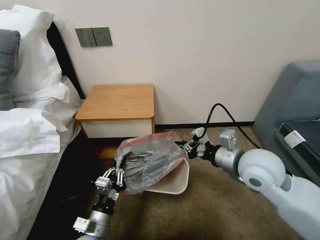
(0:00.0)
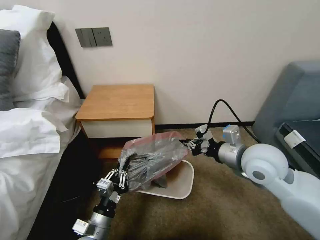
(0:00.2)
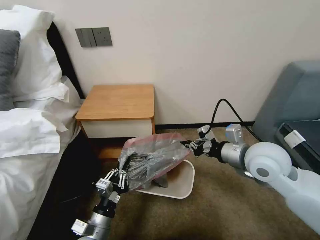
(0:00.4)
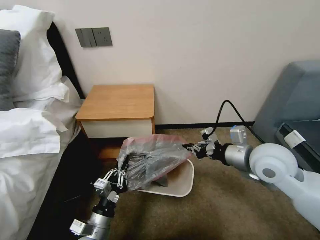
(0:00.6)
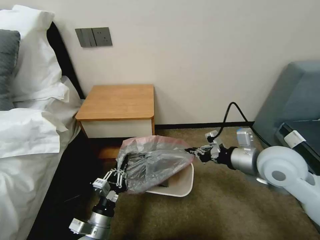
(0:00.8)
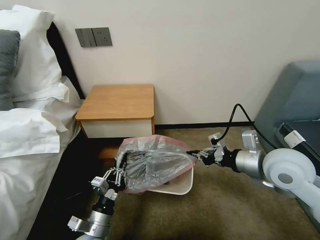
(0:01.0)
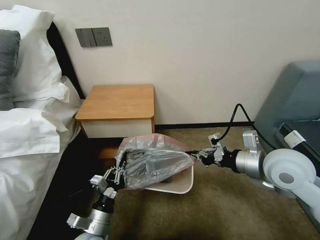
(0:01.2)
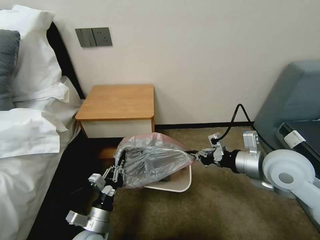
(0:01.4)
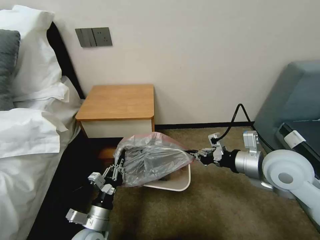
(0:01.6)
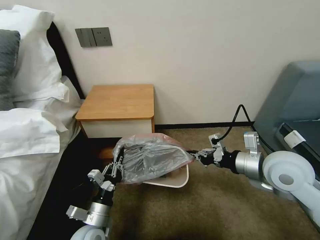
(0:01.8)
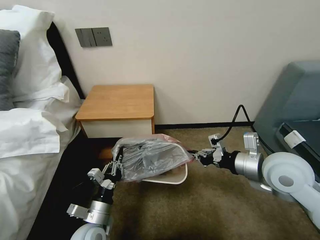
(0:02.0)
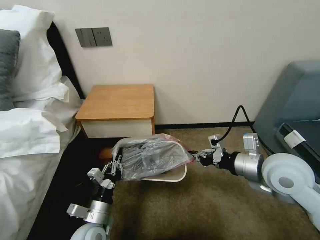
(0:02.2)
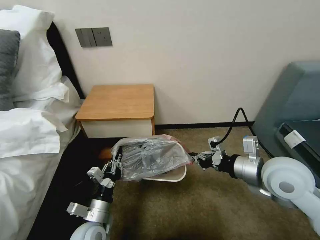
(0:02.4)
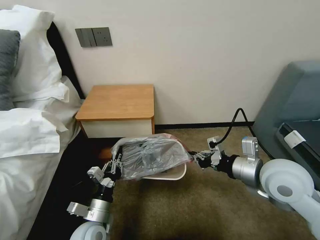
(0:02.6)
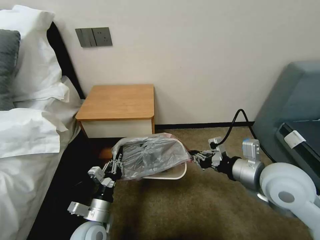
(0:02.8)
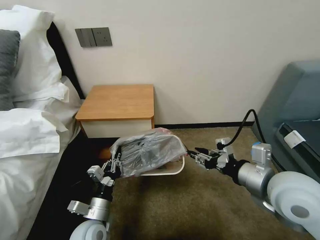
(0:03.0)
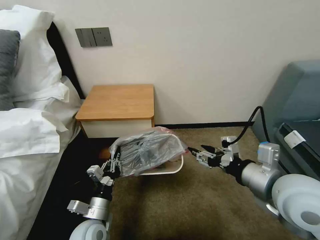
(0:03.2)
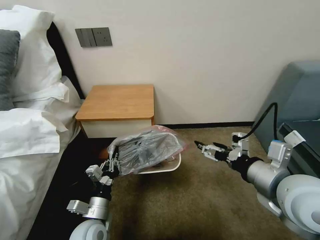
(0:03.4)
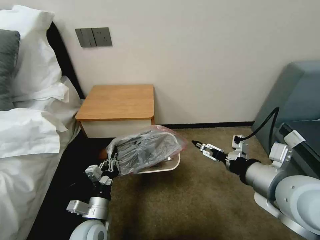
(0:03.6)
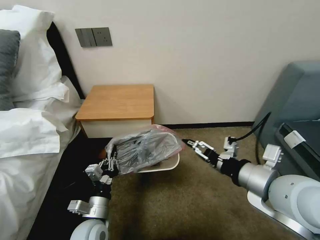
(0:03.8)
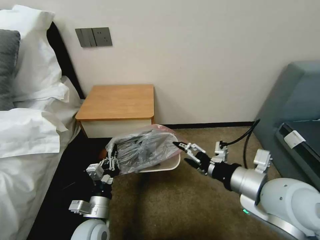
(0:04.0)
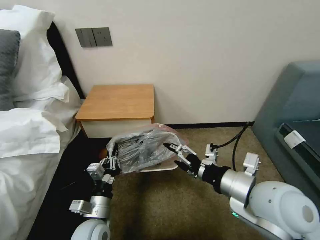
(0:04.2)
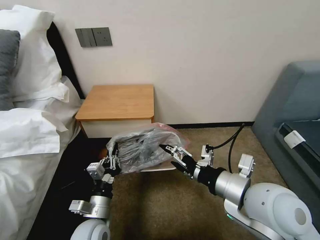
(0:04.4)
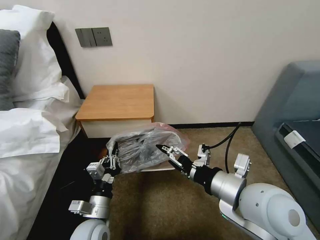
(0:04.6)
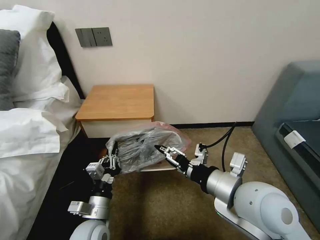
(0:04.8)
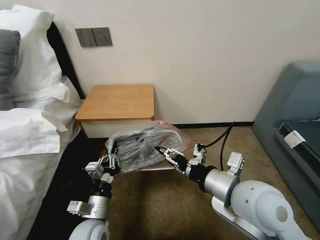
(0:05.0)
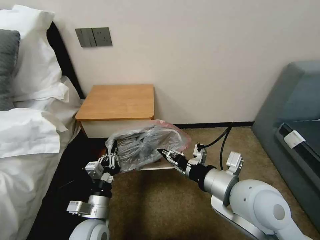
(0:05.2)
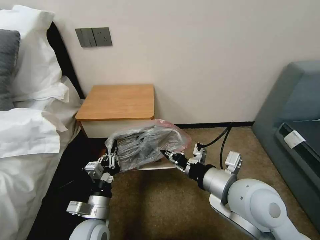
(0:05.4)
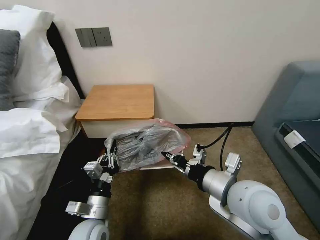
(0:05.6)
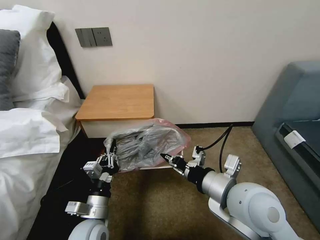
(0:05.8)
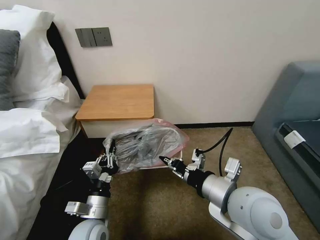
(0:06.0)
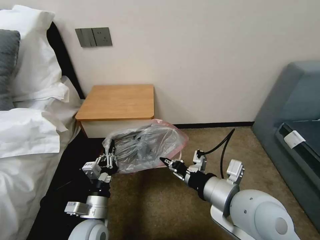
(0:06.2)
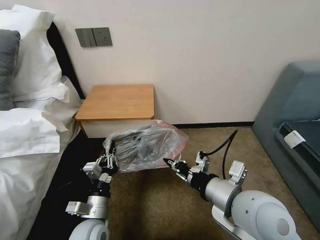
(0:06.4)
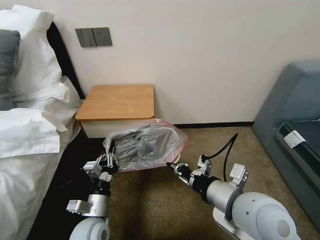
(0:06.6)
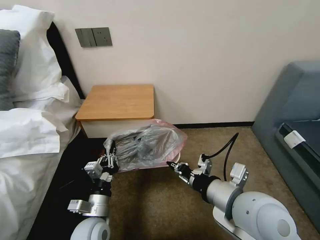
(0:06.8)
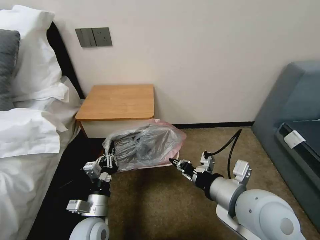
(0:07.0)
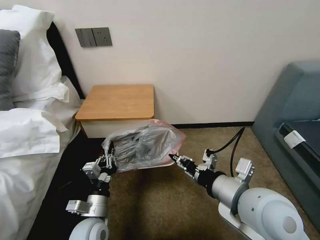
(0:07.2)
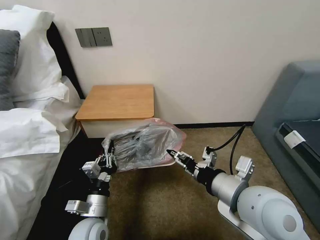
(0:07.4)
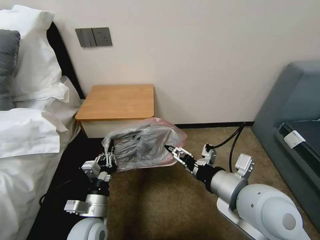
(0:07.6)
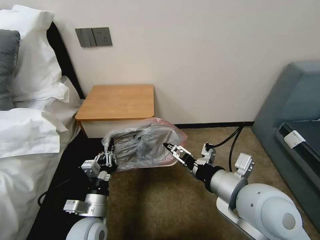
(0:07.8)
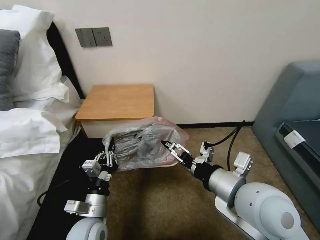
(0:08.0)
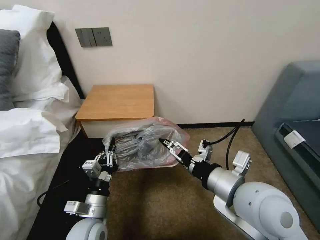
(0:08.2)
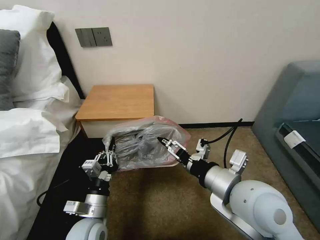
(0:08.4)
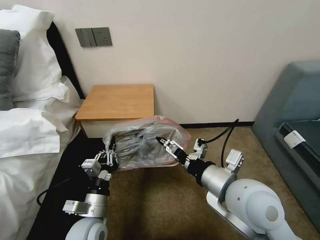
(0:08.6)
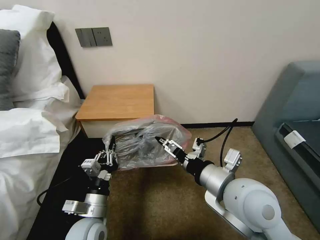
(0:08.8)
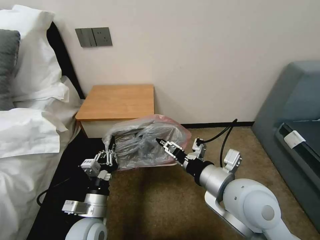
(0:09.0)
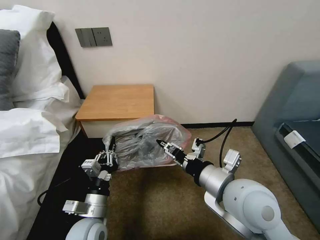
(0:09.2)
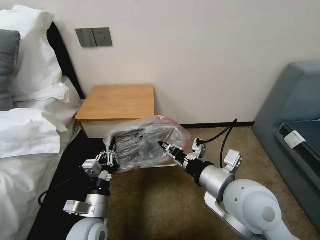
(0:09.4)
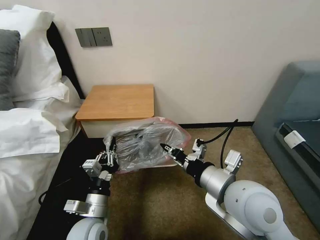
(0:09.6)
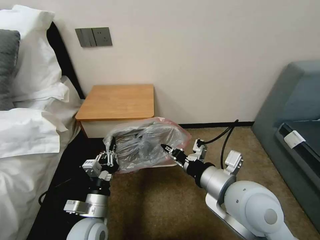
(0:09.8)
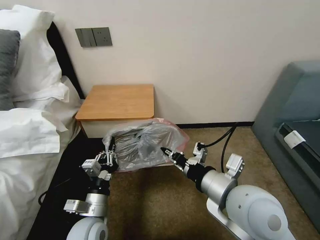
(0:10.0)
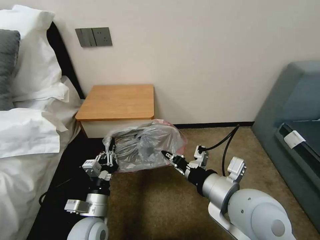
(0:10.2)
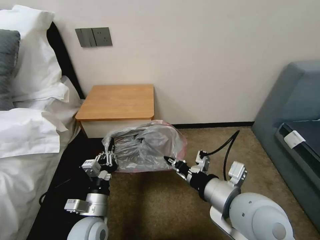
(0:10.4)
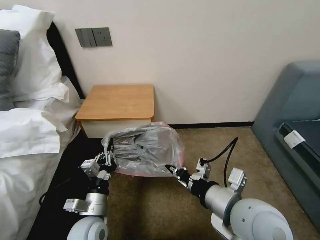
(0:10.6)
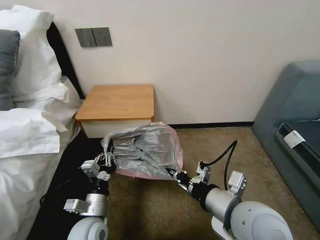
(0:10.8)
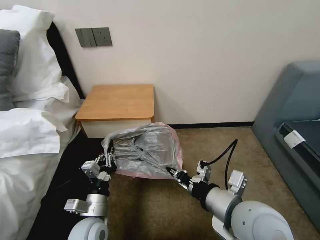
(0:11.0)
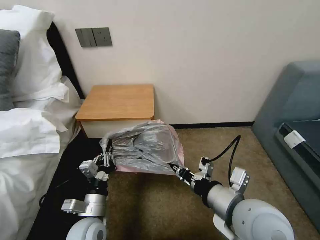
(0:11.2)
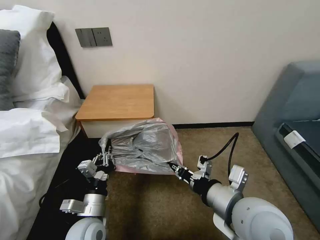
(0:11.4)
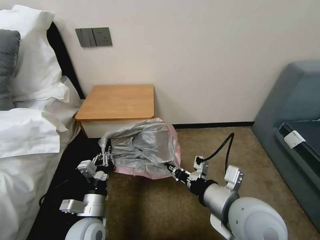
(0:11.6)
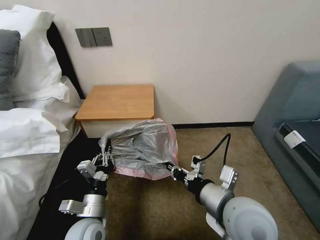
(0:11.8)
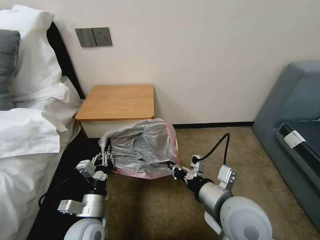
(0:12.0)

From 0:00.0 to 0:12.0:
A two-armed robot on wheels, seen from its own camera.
Task of the whole recording: Pick up the garbage bag from the table and place it over the trash can.
From 0:00.0 to 0:01.6: The right gripper moves to the right, some 5 cm.
From 0:01.6 to 0:03.0: The right gripper shifts roughly 5 cm backward, and opens its fingers.
From 0:03.0 to 0:04.4: The right gripper heads to the left, covering about 5 cm, and opens its fingers.
From 0:04.4 to 0:06.0: The right gripper closes.
From 0:06.0 to 0:07.6: The right gripper opens its fingers.
From 0:07.6 to 0:09.0: The grippers stay close to where they were, moving slightly.
From 0:09.0 to 0:10.4: The right gripper closes up.
From 0:10.4 to 0:12.0: There are only small adjustments of the grippers.

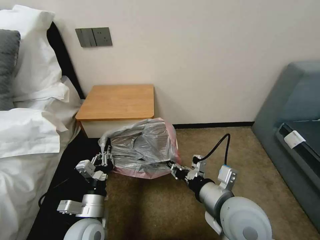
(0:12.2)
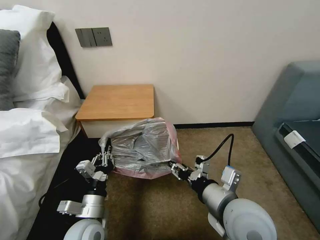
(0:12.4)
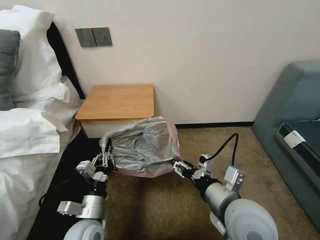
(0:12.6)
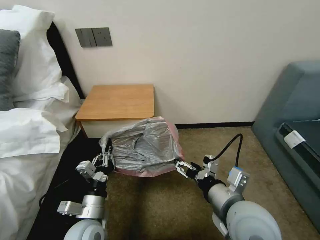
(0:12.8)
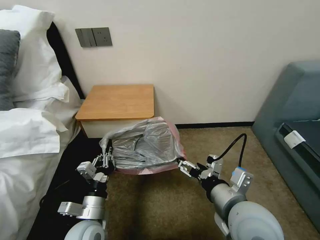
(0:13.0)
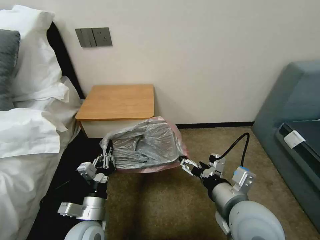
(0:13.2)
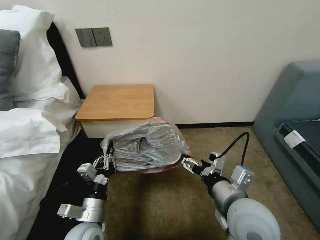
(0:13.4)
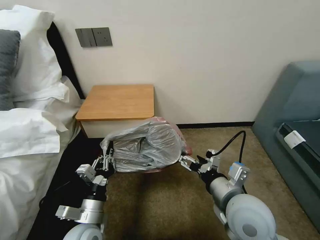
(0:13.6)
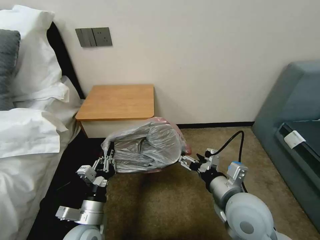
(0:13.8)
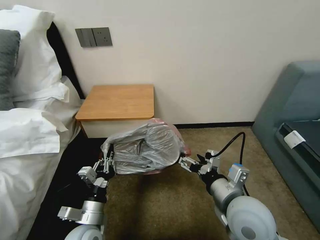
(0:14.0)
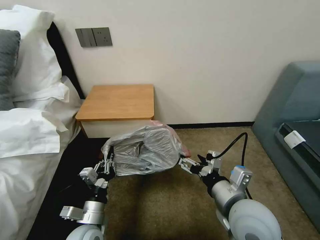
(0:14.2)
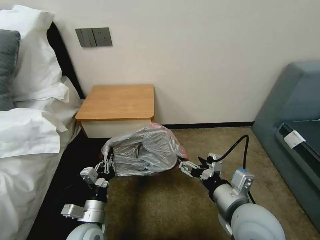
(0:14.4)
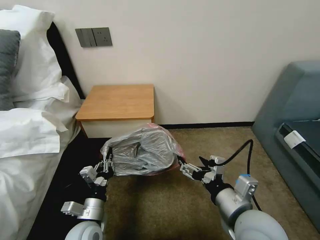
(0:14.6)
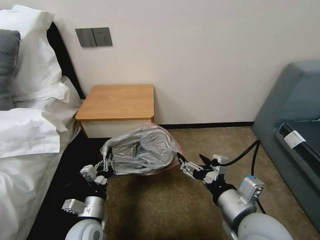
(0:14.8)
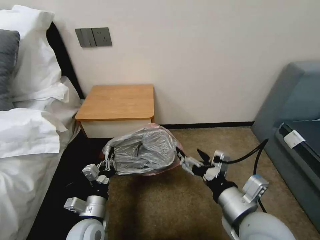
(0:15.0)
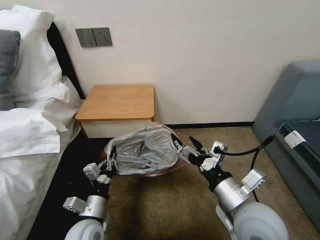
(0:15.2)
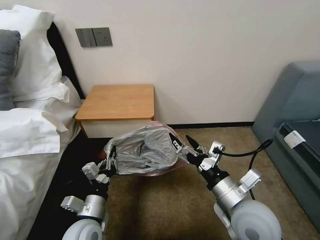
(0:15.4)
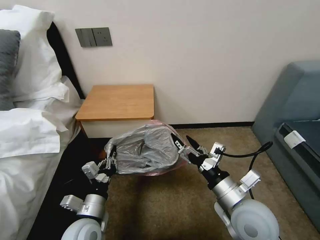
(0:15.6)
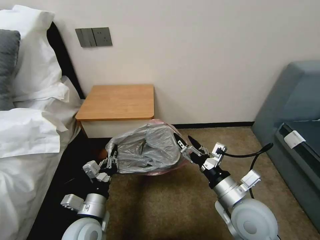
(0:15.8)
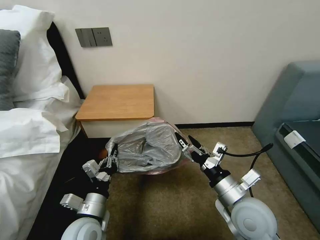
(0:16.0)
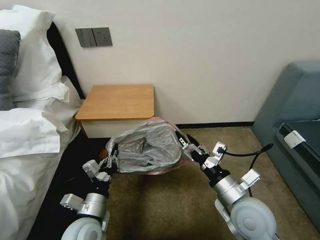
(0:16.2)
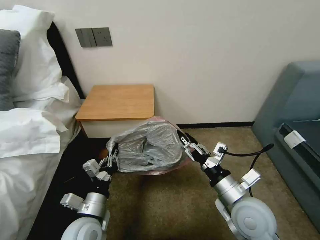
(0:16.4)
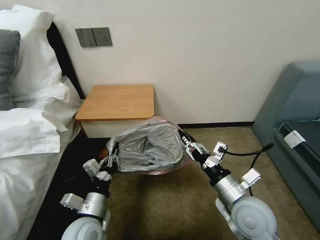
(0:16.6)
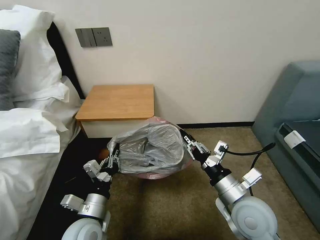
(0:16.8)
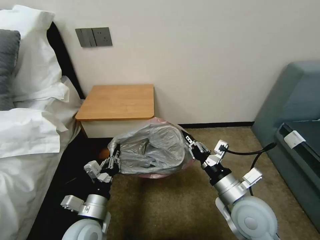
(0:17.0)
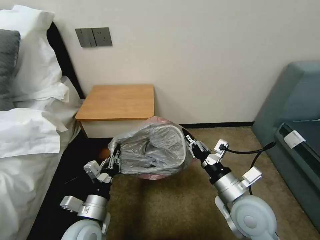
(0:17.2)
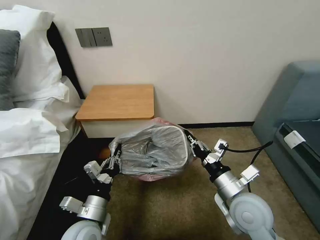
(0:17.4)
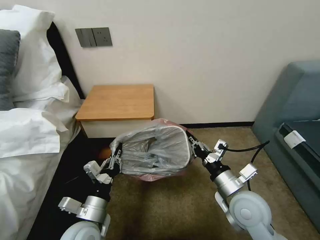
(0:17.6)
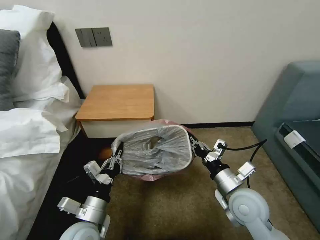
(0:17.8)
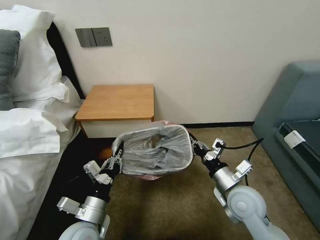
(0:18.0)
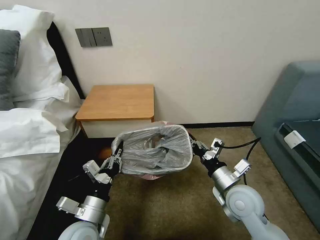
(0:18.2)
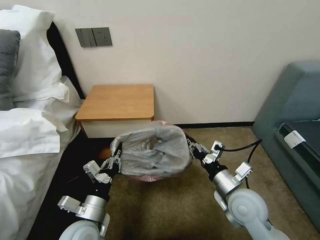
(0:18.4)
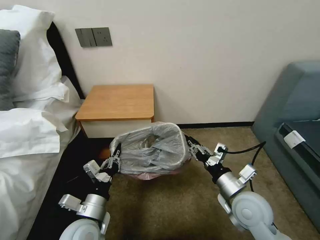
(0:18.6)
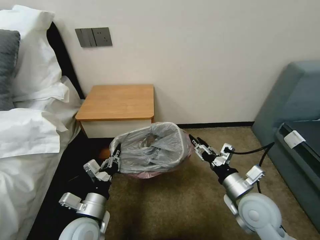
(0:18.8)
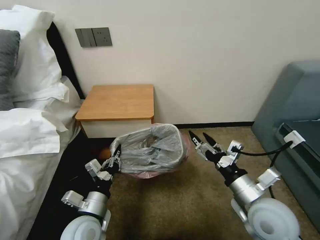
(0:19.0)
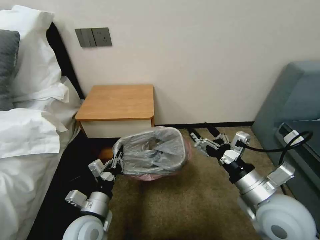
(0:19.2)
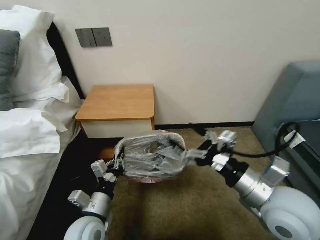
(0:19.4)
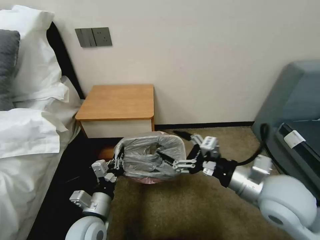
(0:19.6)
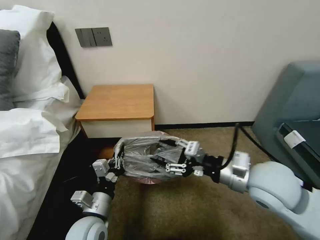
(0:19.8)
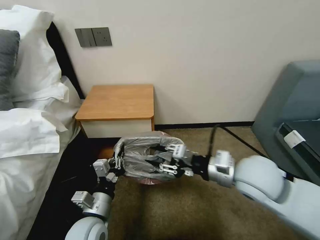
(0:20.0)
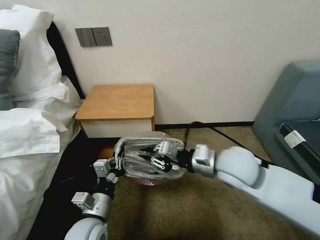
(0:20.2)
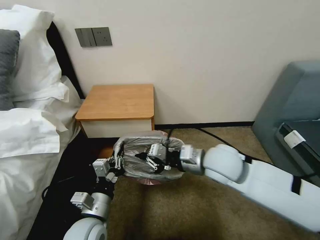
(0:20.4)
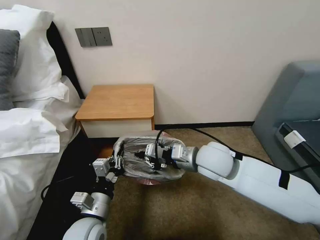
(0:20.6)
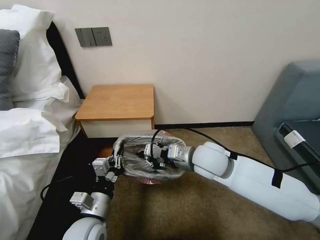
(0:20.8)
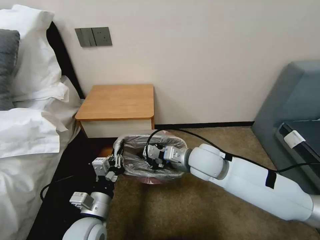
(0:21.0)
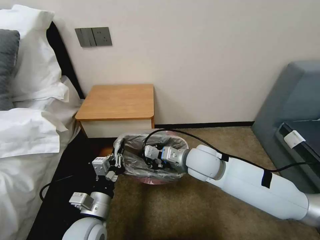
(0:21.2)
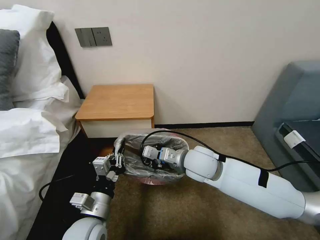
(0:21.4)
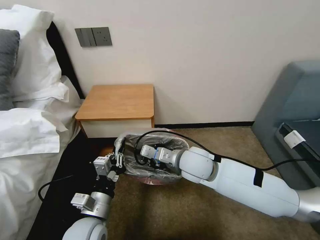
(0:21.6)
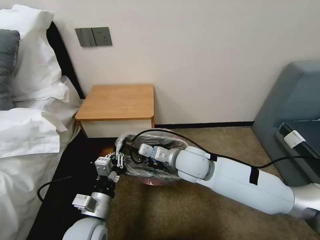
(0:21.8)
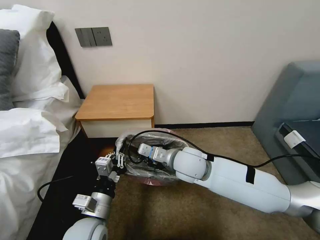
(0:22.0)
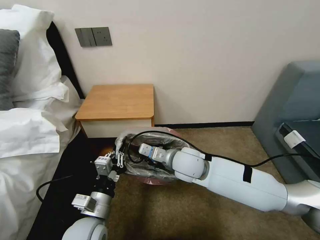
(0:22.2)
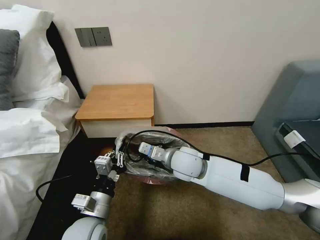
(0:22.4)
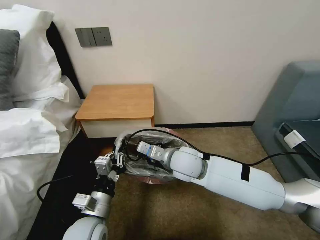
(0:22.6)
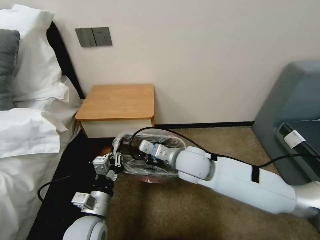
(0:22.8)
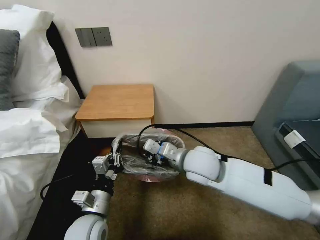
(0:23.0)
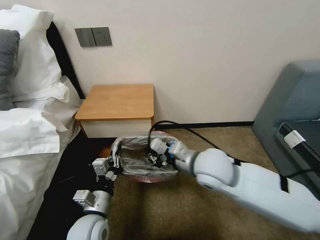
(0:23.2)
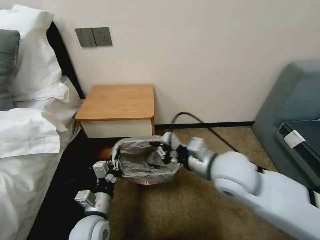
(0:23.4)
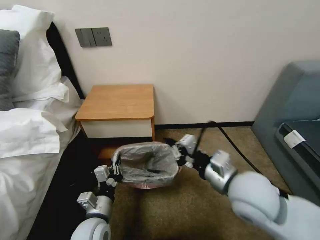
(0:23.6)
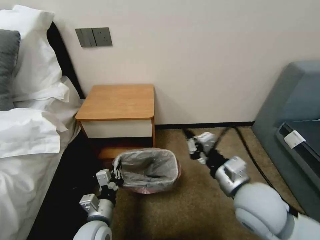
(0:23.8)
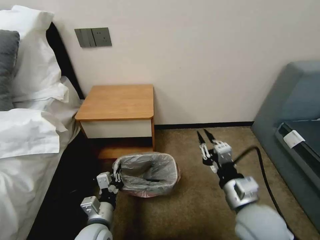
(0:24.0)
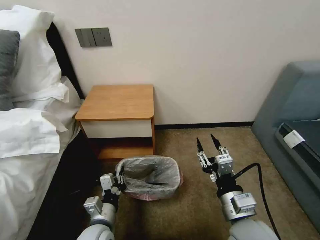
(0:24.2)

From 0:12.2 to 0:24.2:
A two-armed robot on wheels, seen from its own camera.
Task of the whole recording: Pick up the garbage bag from the table and place it over the trash can.
From 0:12.2 to 0:13.8: The right gripper opens its fingers.
From 0:15.2 to 0:16.6: The right gripper is displaced downward by approximately 5 cm, and closes.
From 0:16.6 to 0:18.2: The right gripper moves approximately 5 cm, and closes its fingers.
From 0:18.2 to 0:19.8: The right gripper shifts roughly 15 cm upward, and opens its fingers.
From 0:19.8 to 0:21.2: The right gripper shifts roughly 15 cm to the left, forward and downward, and closes.
From 0:21.2 to 0:22.6: The grippers make only small movements.
From 0:22.6 to 0:24.2: The right gripper shifts approximately 25 cm backward and to the right, and opens; the left gripper moves downward, about 5 cm.
